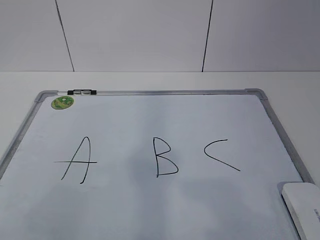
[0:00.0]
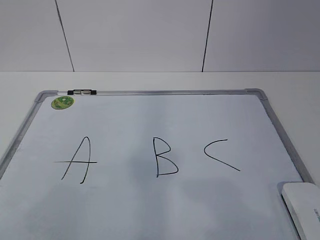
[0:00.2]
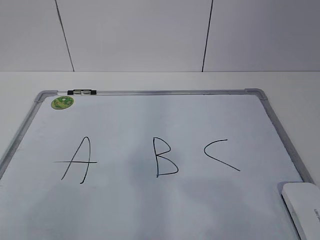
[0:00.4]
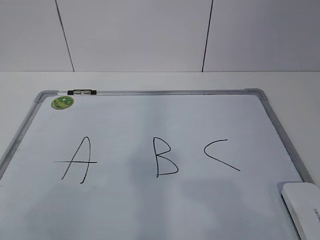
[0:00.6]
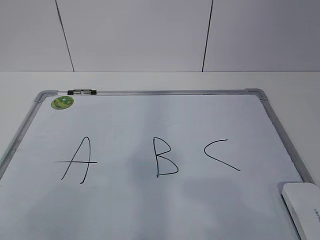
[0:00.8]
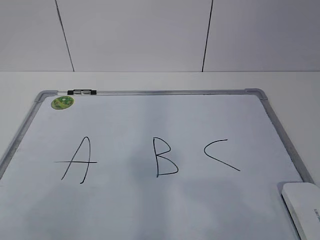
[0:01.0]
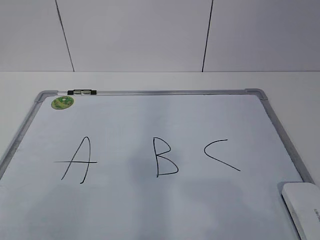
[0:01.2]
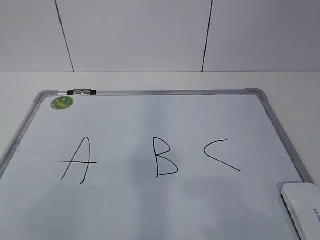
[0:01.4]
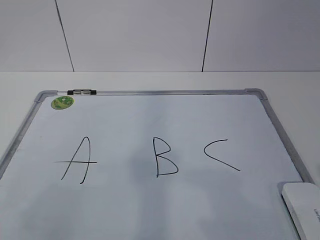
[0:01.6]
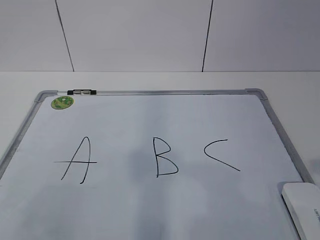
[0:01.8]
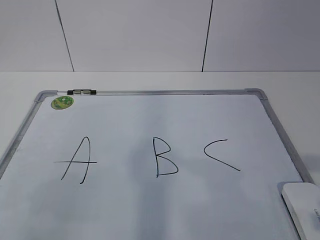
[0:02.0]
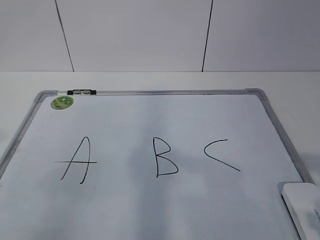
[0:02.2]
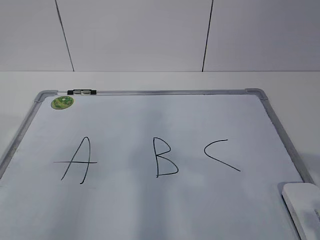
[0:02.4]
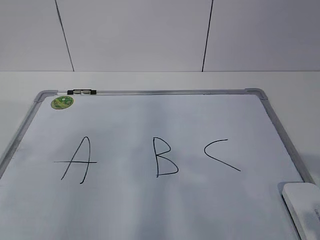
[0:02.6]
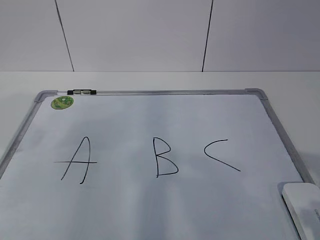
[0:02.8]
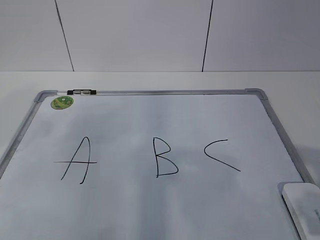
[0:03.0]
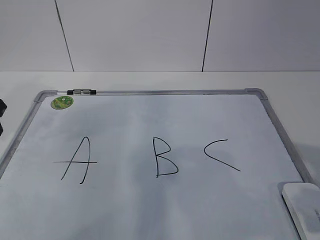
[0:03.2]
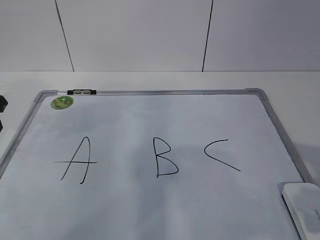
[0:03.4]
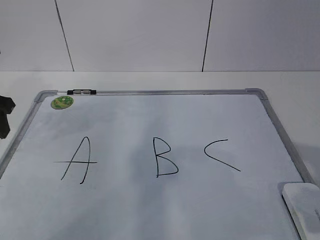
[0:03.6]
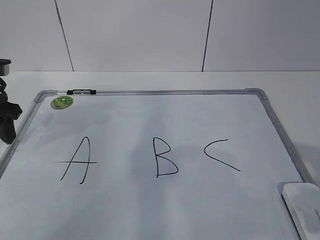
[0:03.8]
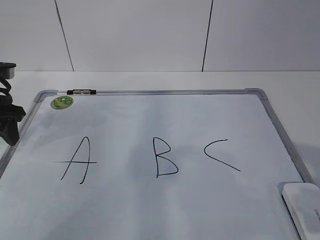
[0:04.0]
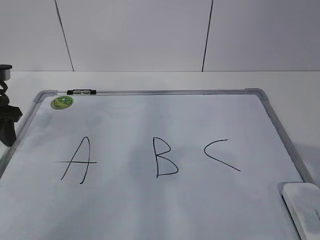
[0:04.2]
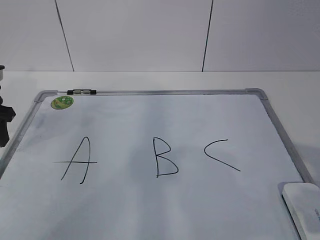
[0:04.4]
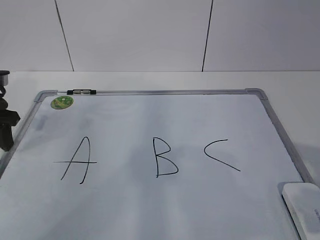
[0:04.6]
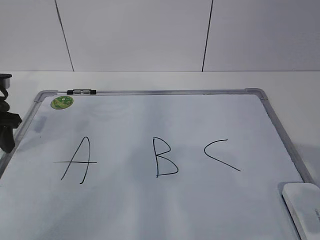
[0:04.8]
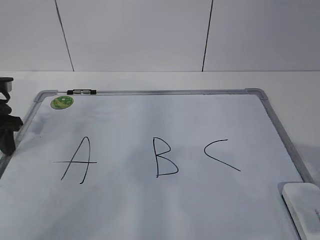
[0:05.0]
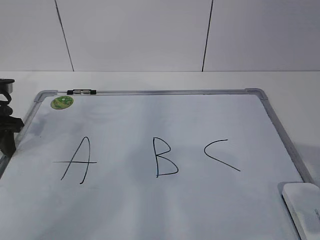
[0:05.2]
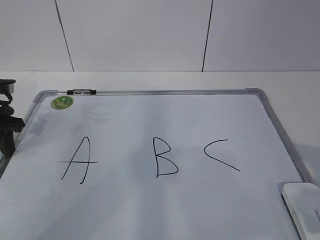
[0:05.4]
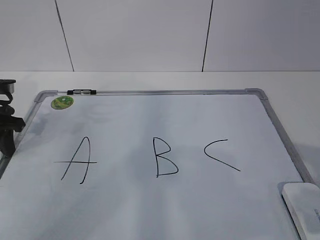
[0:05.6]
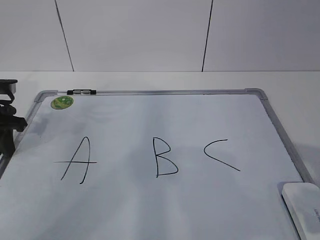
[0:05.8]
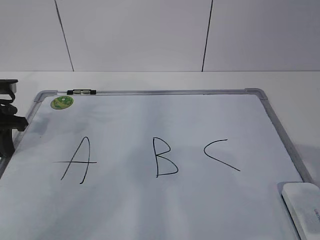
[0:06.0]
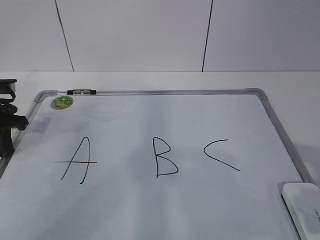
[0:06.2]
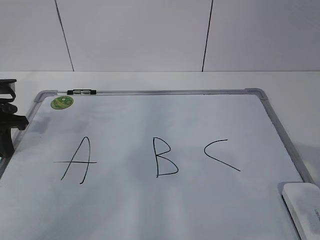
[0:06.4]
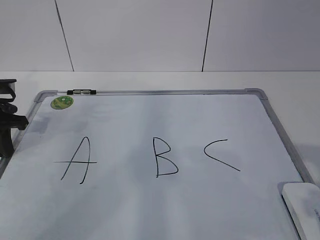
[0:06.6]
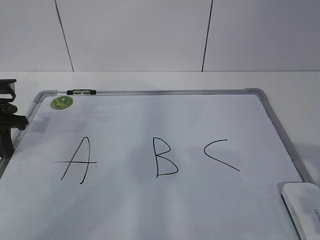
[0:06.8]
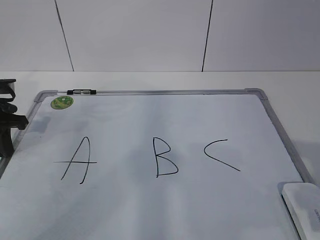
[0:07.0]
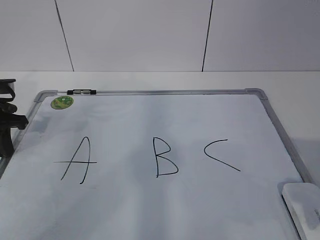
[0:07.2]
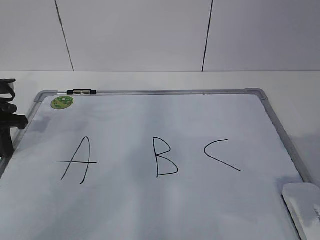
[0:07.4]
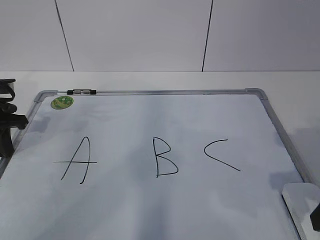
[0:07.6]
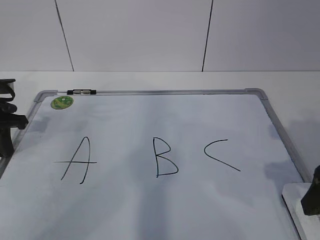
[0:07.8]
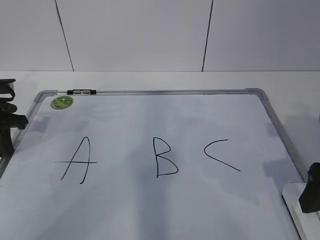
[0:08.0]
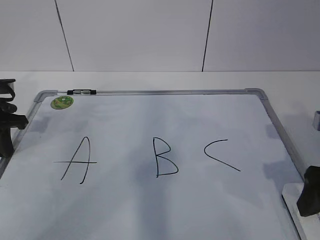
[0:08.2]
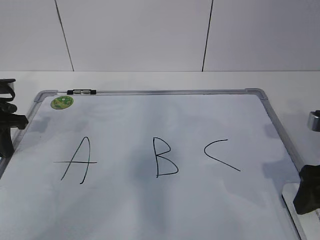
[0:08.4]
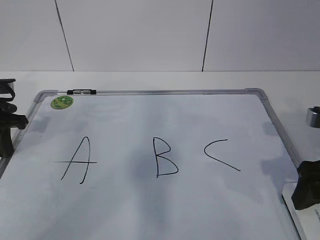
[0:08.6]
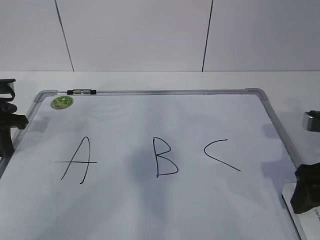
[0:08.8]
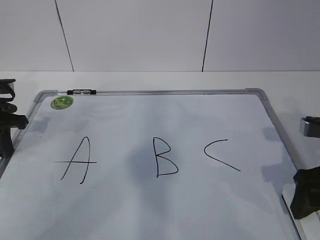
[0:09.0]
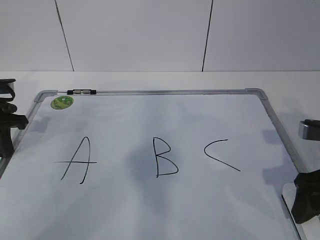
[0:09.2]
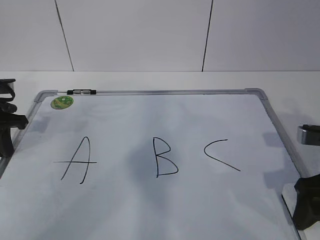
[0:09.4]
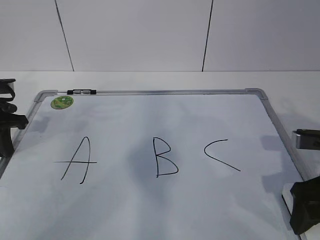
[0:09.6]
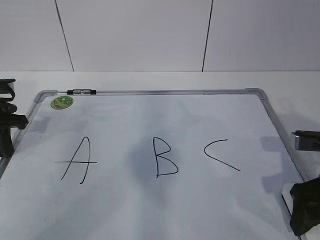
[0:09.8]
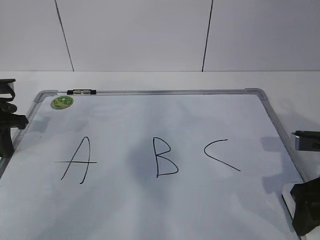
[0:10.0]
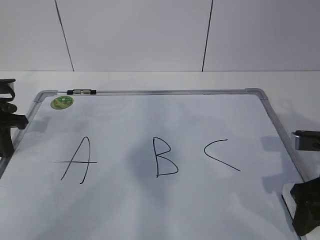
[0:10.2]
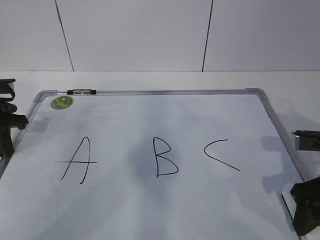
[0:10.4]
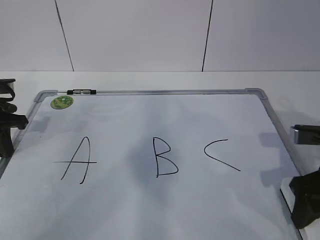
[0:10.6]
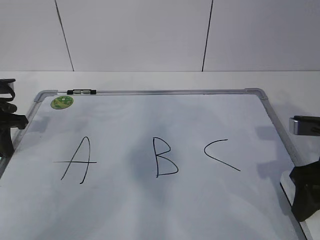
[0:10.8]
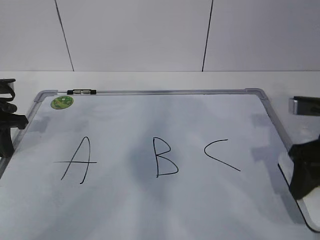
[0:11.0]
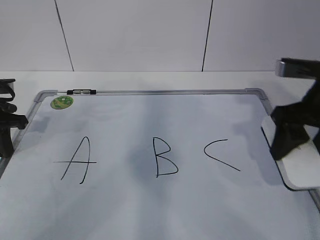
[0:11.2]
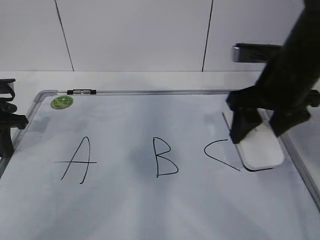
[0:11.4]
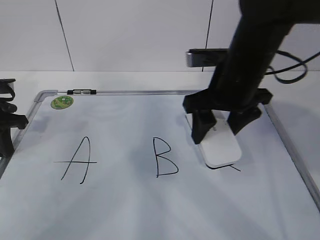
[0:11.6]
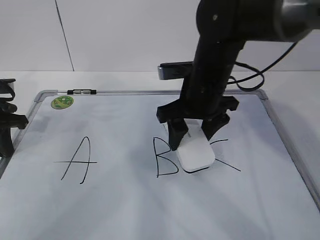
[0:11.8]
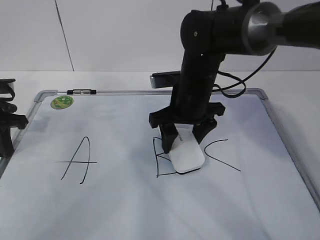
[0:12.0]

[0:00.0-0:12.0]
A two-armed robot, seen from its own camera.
Task of the whole recording: pick up the eraser on the blackboard and erase the letter "B".
Step, 0:05.2 to 0:08.6: Grab the eraser with your right hand.
0:01.6 to 0:03.0: The left gripper moves forward, roughly 25 cm, while the right gripper moves forward, approximately 5 cm.
0:03.0 to 0:04.4: The left gripper is displaced forward and downward by some 15 cm.
0:04.4 to 0:06.0: The left gripper closes.
0:06.0 to 0:07.6: The right gripper heads forward, covering about 10 cm, and opens.
0:07.6 to 0:09.0: The right gripper shifts approximately 5 cm forward.
0:09.0 to 0:10.4: The right gripper closes.
0:10.4 to 0:12.0: The right gripper goes approximately 25 cm to the left and forward.

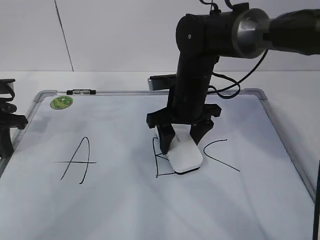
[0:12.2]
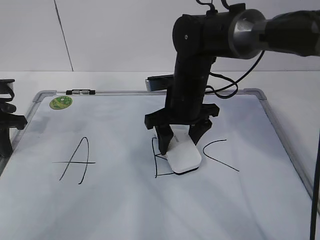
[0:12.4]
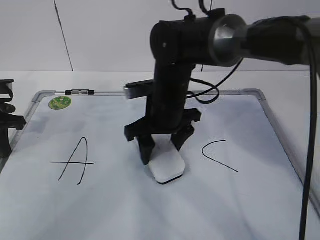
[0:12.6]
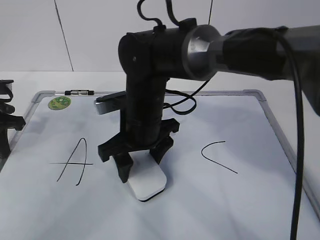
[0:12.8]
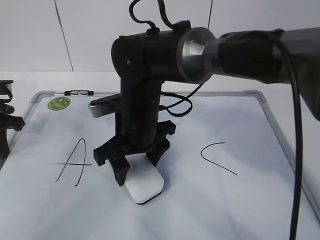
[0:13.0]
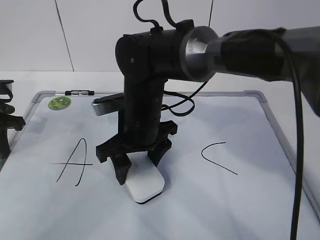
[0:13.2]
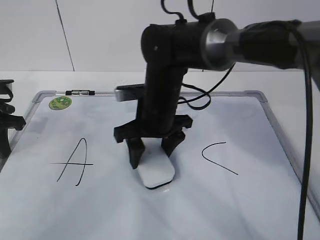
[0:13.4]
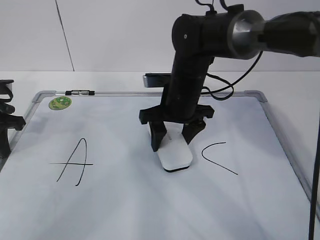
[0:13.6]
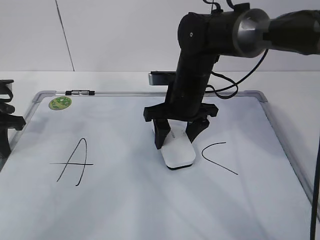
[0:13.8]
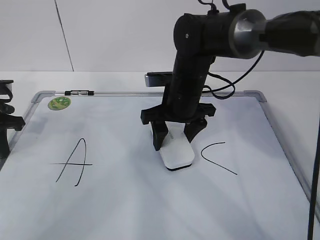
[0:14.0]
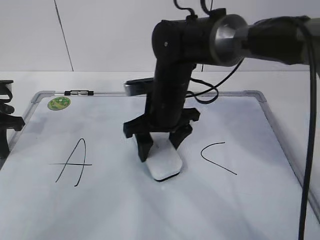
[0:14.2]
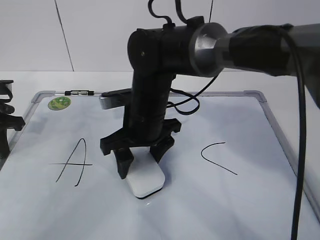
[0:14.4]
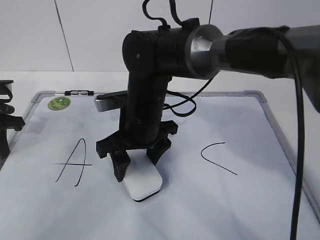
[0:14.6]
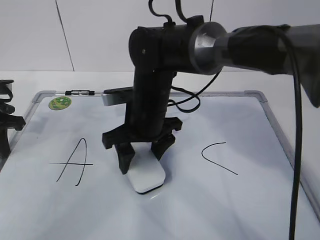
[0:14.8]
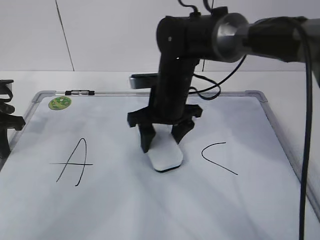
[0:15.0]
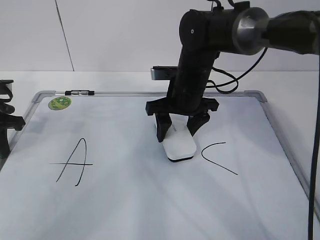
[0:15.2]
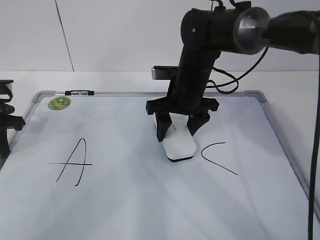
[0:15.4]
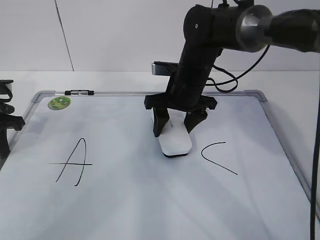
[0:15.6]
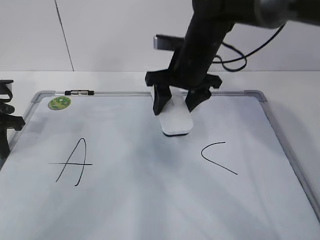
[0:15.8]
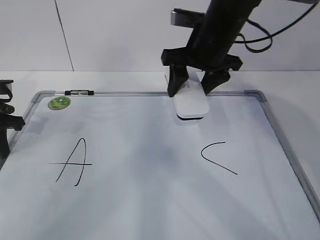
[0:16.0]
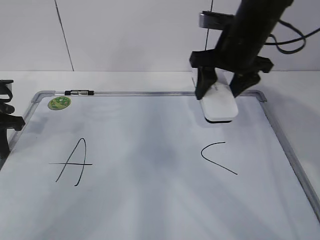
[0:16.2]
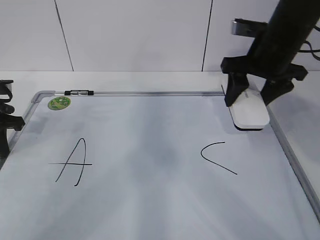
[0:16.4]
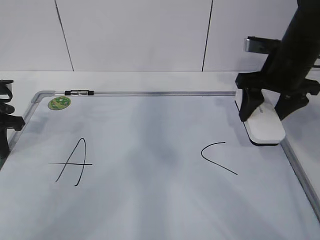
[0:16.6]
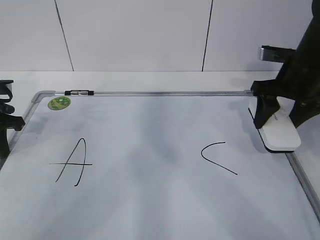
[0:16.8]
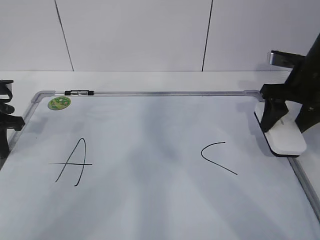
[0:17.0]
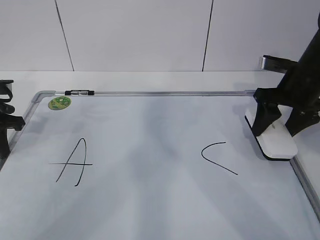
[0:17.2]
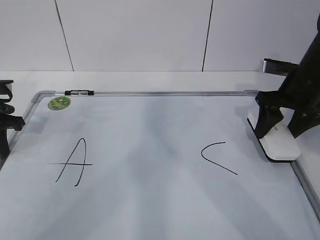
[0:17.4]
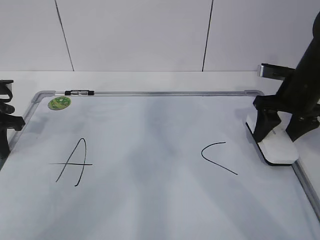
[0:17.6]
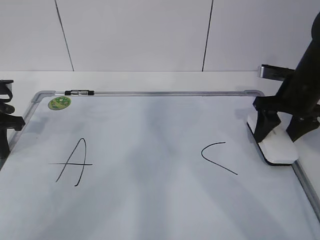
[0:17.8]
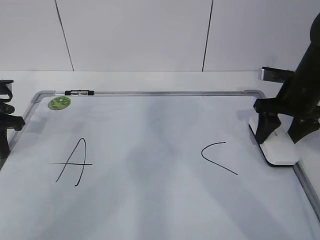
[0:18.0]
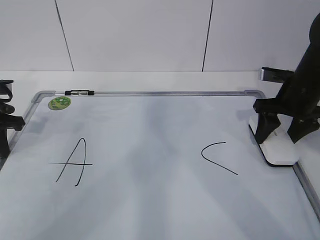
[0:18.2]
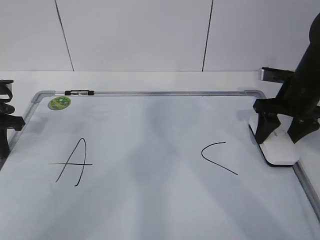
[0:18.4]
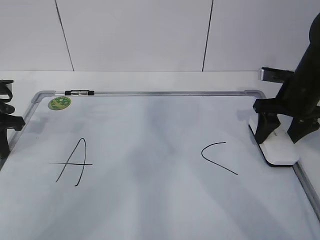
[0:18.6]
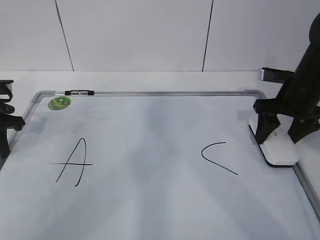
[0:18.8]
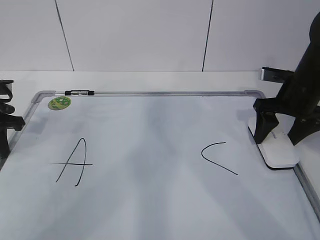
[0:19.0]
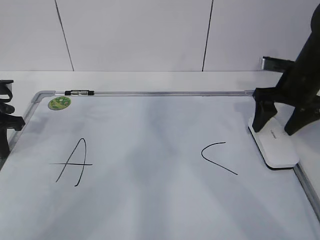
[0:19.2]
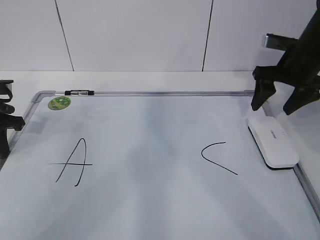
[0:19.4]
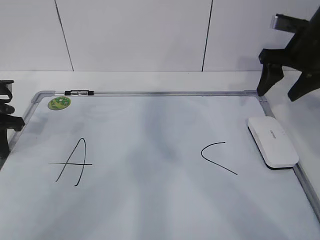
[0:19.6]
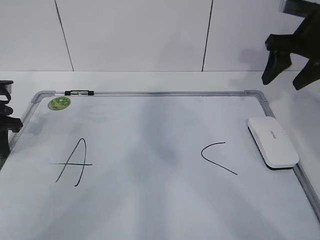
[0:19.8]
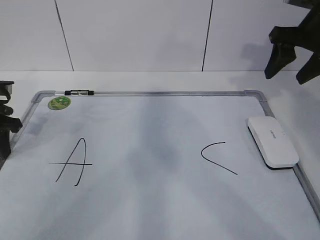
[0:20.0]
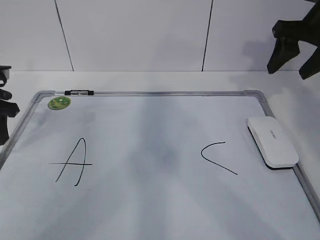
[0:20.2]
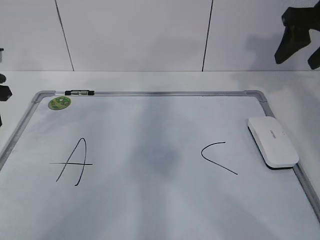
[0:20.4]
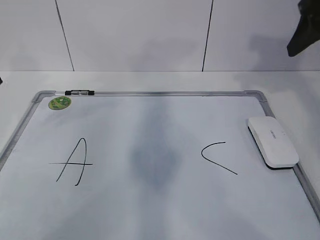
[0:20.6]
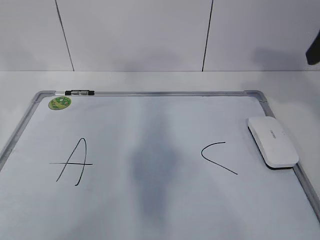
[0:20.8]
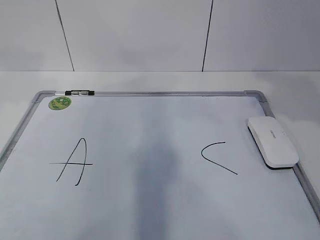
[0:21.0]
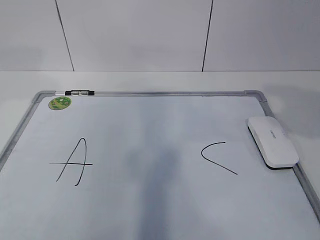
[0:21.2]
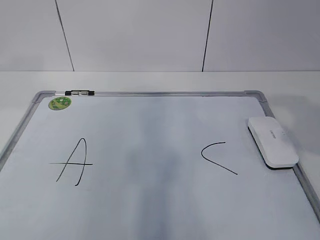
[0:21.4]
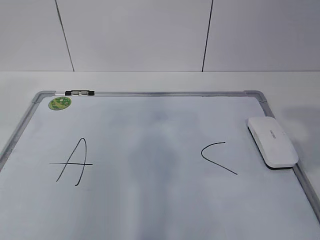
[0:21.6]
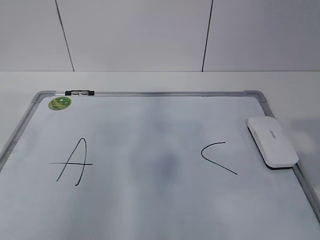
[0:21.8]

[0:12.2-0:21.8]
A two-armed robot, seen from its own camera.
Task of the whole recording: pick up the eraser on the blackboard and erase the letter "B".
Step, 0:12.8 to 0:15.6: Put down the eraser with your right hand.
0:12.2 to 0:13.8: The right gripper reaches approximately 10 cm to the left, then returns.
0:13.8 to 0:15.4: The right gripper travels to the left and back again, approximately 10 cm each way.
0:15.4 to 0:17.0: The right gripper moves to the right, approximately 20 cm.
0:17.0 to 0:18.6: There are only small adjustments of the grippers.
0:18.6 to 0:20.2: The right gripper travels upward by approximately 15 cm, and opens, then closes again. Meanwhile the left gripper opens its fingers.
0:20.2 to 0:21.8: The right gripper moves backward, approximately 30 cm; the left gripper is displaced backward and upward by some 25 cm.
